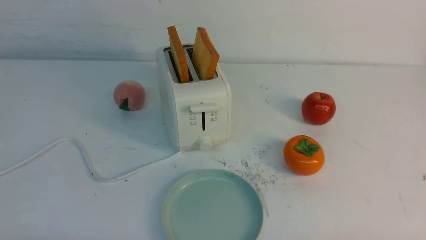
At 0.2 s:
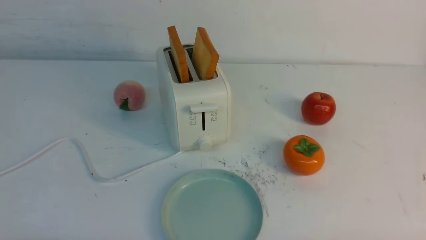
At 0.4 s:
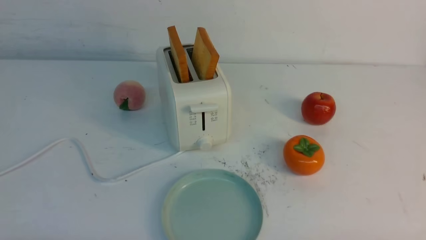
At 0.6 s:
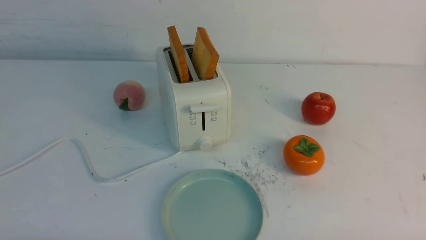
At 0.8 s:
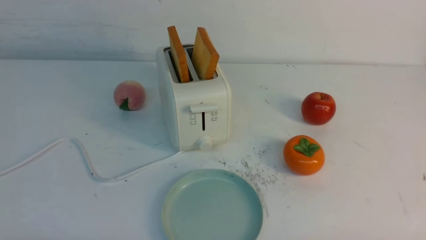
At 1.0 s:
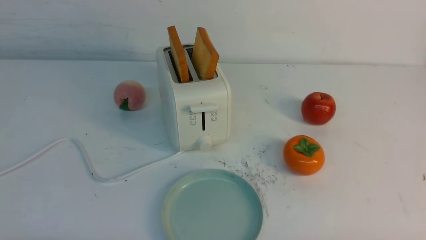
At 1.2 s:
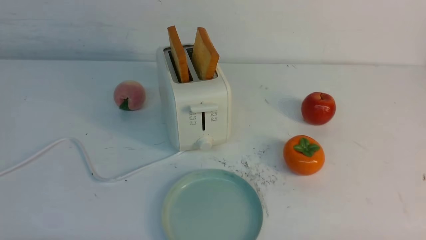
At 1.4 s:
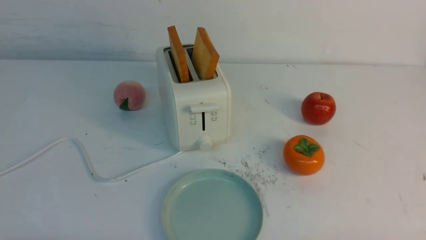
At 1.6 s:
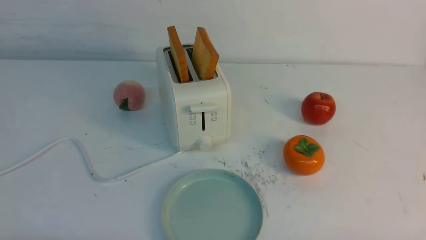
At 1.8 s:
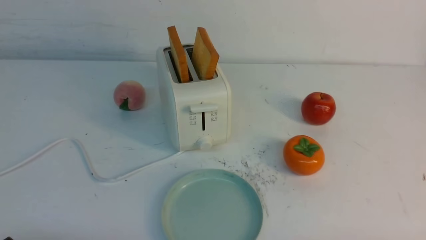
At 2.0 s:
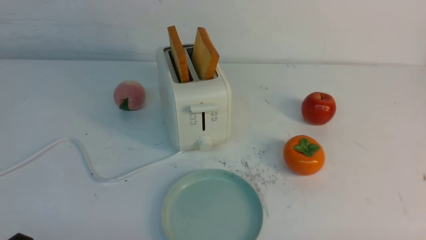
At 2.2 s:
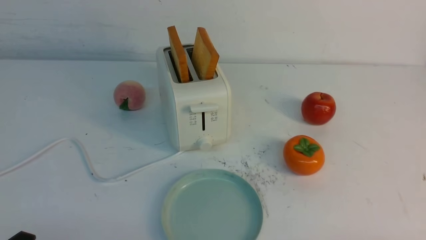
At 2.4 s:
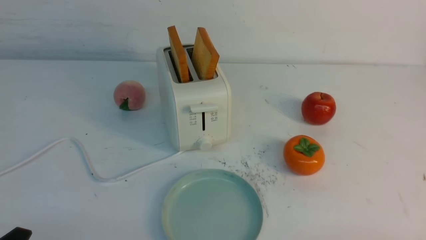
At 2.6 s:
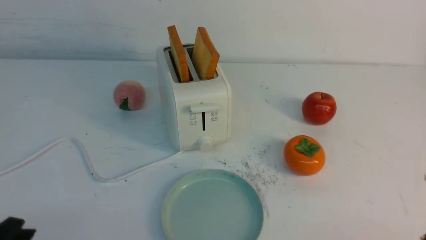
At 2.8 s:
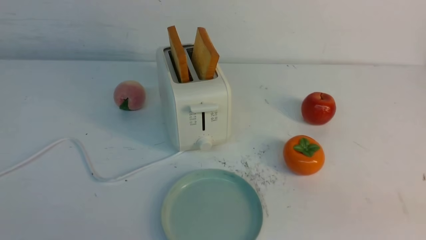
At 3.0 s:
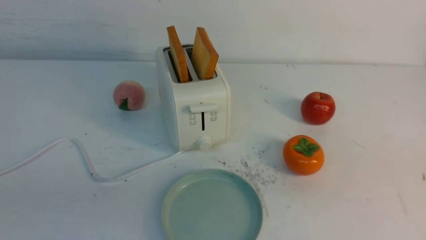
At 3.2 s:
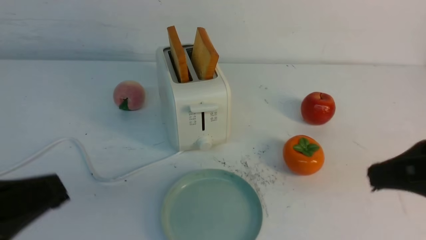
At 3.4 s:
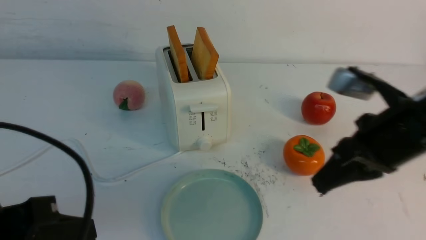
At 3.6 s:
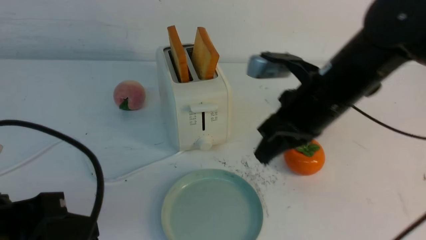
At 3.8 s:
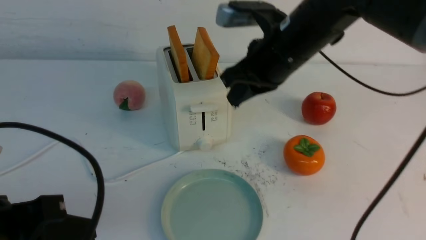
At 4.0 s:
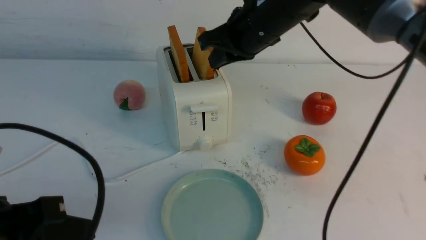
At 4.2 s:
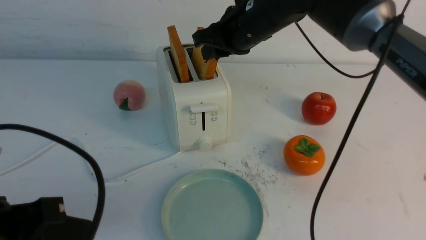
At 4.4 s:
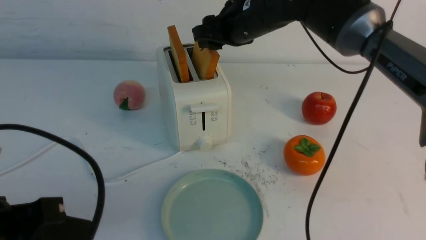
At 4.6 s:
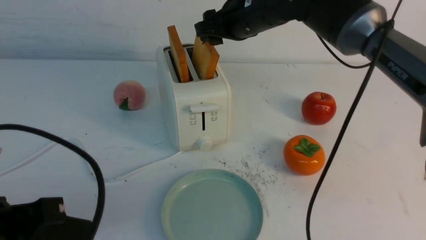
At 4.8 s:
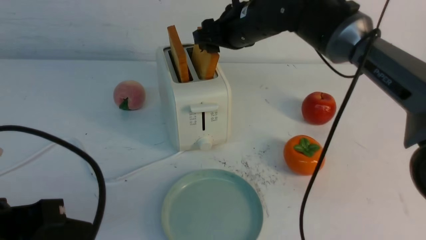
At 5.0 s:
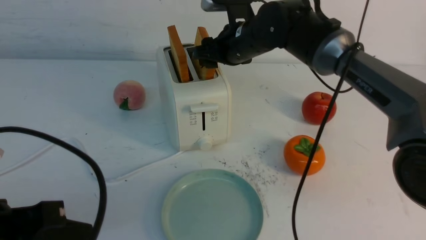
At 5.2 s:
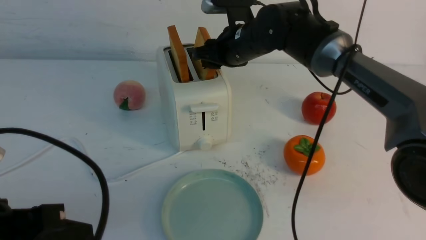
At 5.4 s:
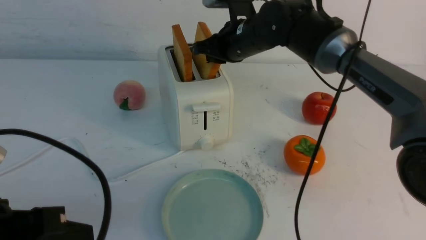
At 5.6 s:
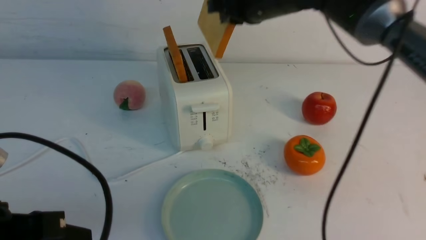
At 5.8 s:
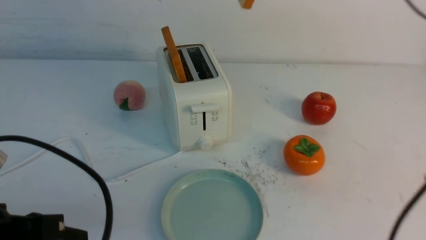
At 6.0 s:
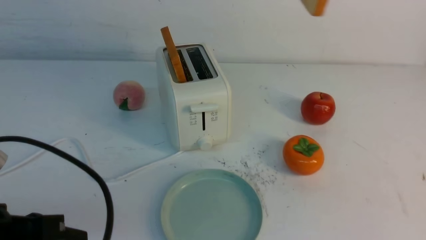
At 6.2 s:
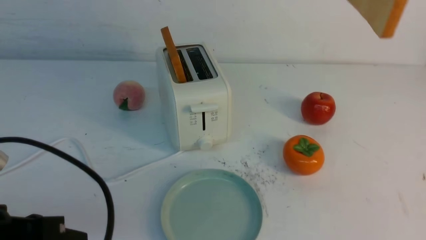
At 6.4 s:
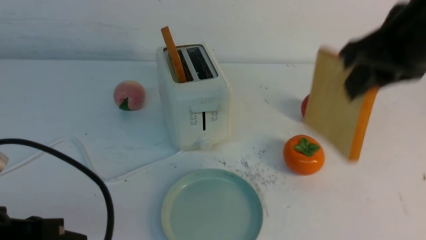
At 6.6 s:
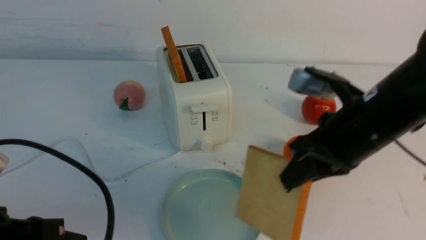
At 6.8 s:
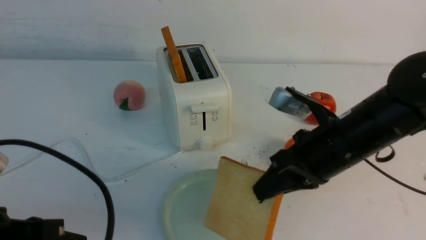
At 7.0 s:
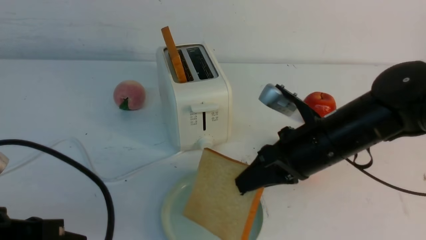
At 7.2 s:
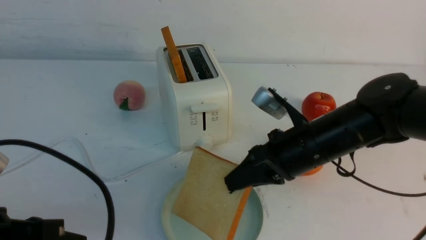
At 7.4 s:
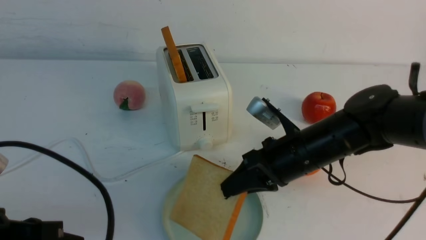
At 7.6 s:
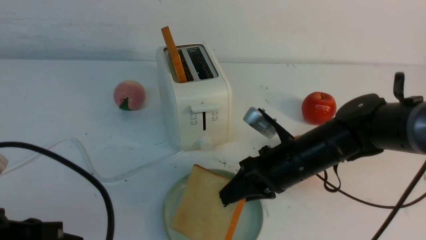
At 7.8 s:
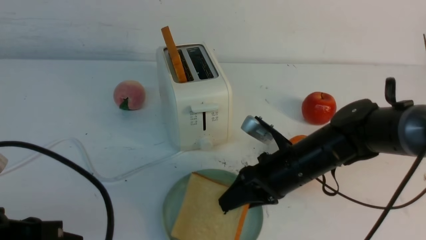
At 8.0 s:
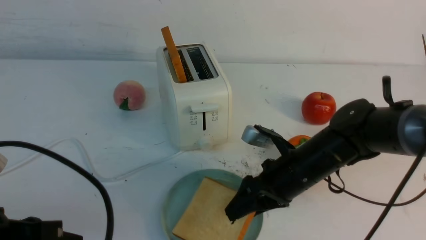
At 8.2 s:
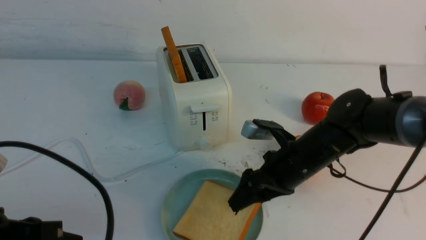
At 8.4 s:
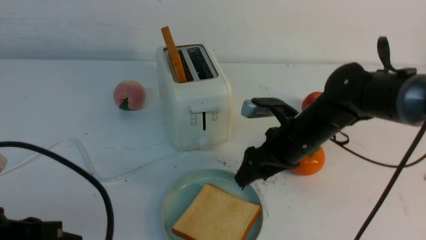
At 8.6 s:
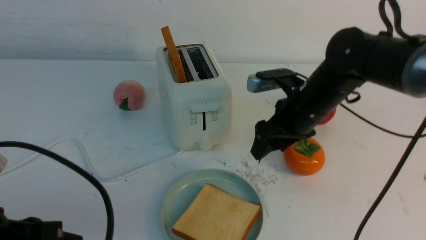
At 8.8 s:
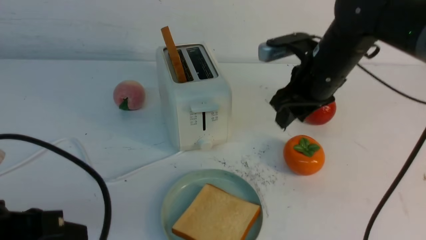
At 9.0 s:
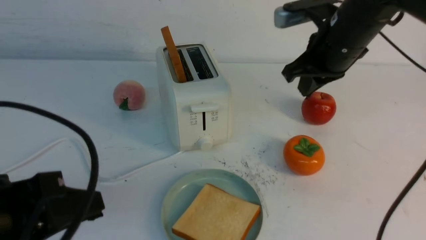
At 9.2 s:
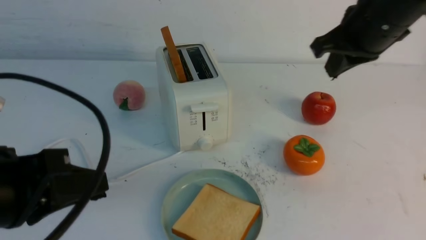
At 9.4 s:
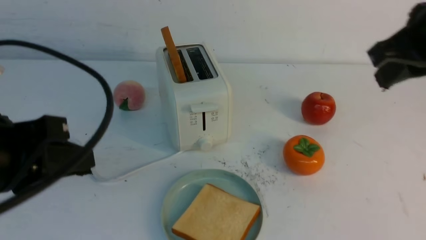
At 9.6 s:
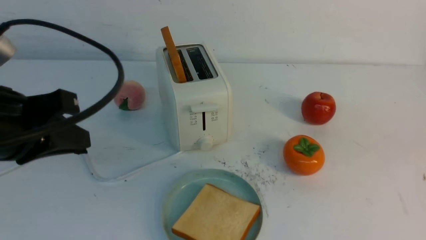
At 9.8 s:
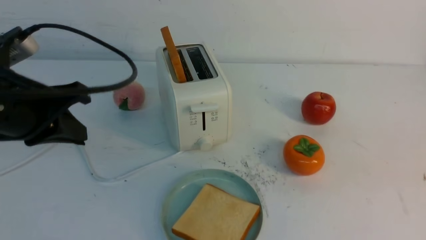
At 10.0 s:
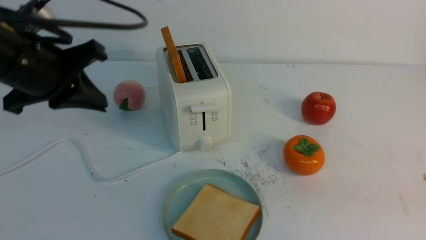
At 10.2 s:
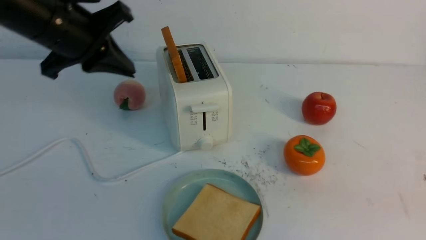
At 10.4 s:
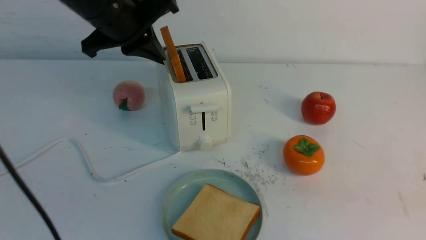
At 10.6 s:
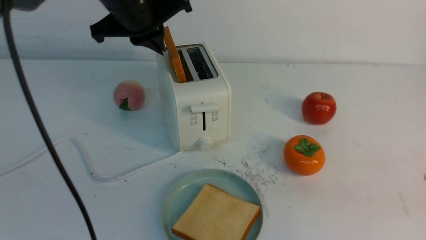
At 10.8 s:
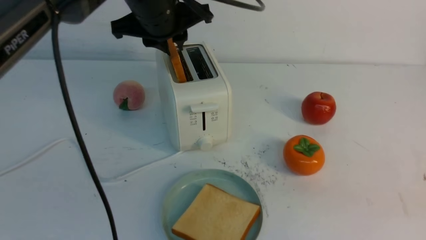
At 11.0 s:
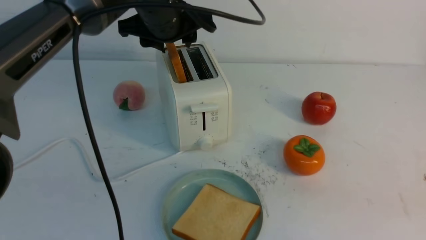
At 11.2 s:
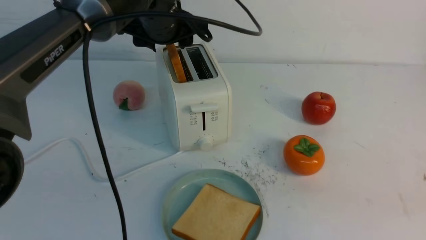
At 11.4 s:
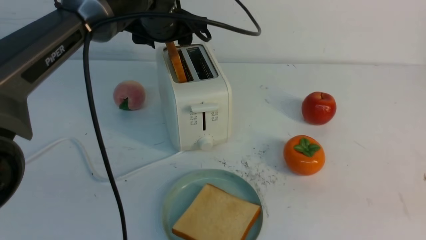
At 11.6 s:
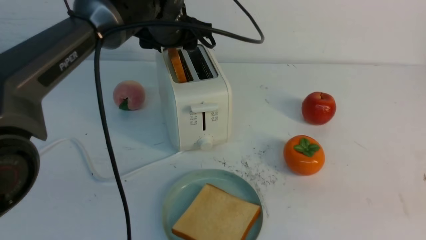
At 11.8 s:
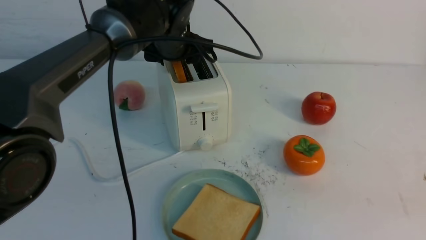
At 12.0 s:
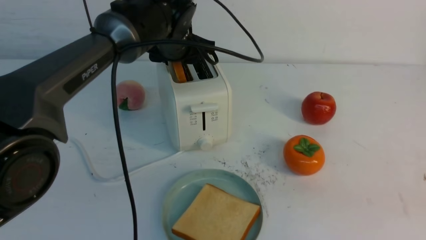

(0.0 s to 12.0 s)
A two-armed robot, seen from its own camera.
Task of the whole recording: take toasted bread from bread machine on white table place on plate.
Step, 0.0 s - 5.4 s: use the right arm to take out a slice of bread.
Step, 5.6 s - 8.2 s: use the right arm to put a slice of bread into the plate.
0.0 s - 1.6 s: Neither gripper changes place.
3.0 s - 4.4 s: The left gripper travels forward by approximately 5 cm, while the right gripper shifts approximately 40 cm forward and to the left, and opens its fingers.
4.4 s - 6.0 s: The right gripper goes approximately 25 cm upward, backward and to the right, and closes its fingers.
6.0 s - 7.6 s: The right gripper moves downward, some 30 cm.
7.6 s - 9.0 s: The right gripper shifts some 15 cm upward, and opens and closes again.
9.0 s - 10.4 s: The left gripper is displaced forward by roughly 25 cm, while the right gripper is displaced backward and to the right by roughly 30 cm.
10.4 s - 12.0 s: The left gripper is displaced forward, downward and to the right by approximately 15 cm, and opens.

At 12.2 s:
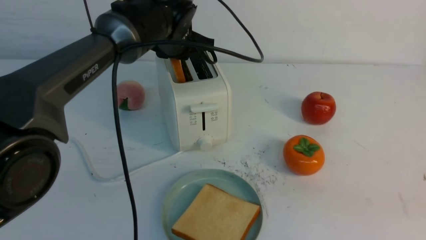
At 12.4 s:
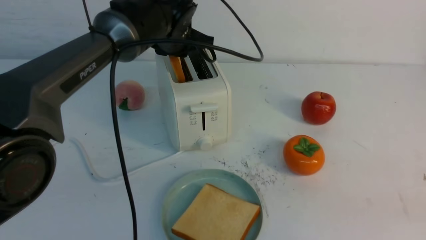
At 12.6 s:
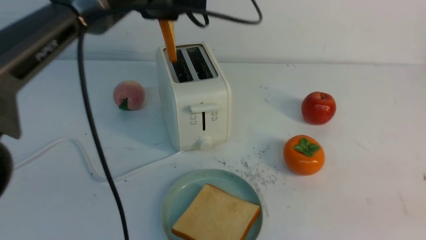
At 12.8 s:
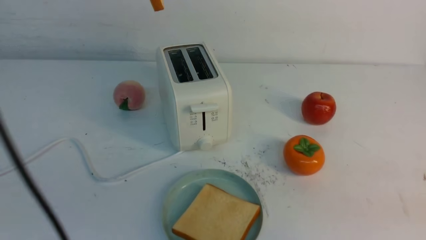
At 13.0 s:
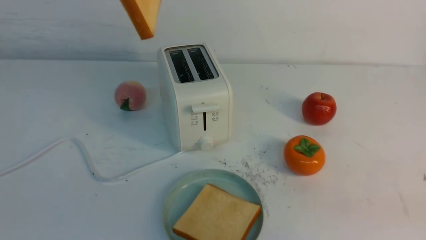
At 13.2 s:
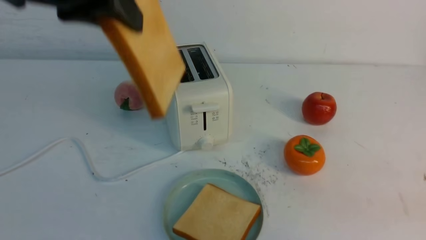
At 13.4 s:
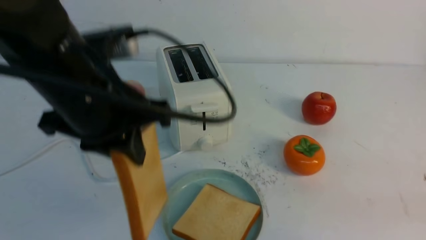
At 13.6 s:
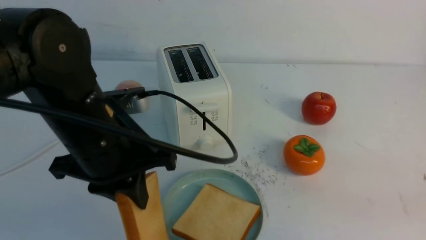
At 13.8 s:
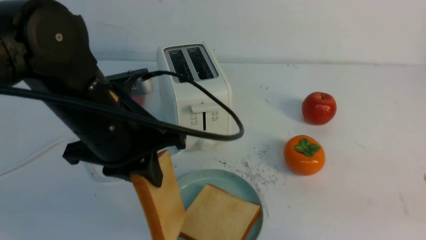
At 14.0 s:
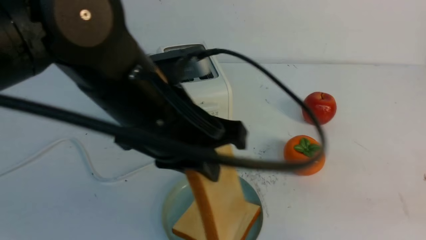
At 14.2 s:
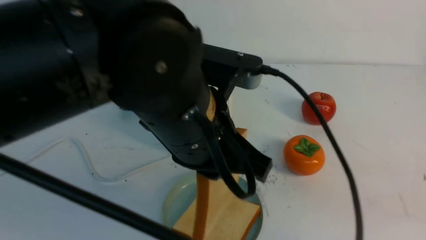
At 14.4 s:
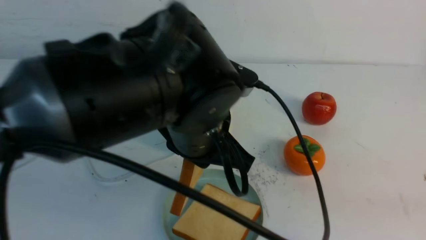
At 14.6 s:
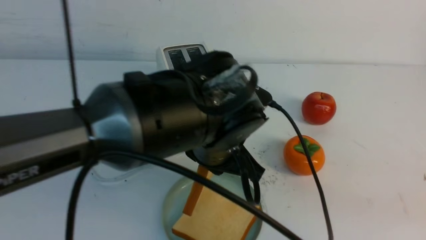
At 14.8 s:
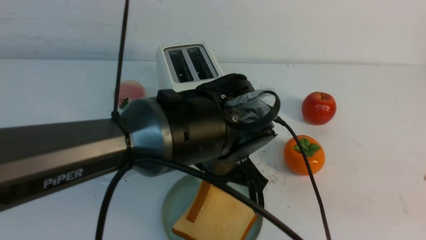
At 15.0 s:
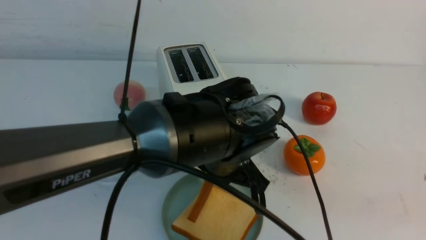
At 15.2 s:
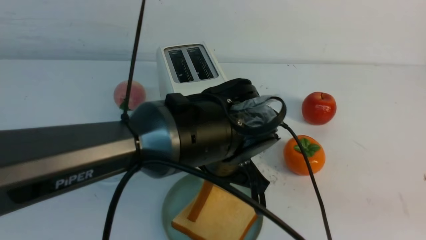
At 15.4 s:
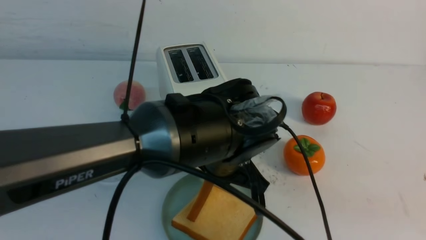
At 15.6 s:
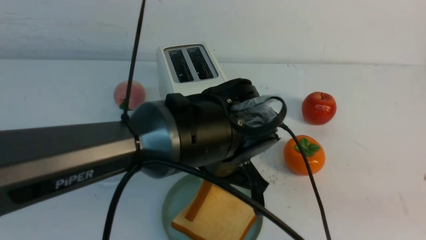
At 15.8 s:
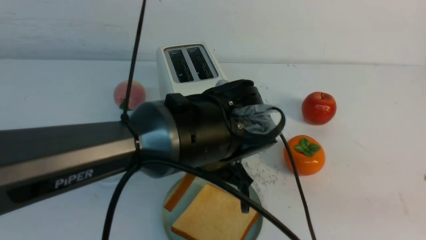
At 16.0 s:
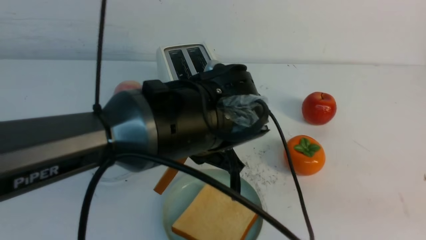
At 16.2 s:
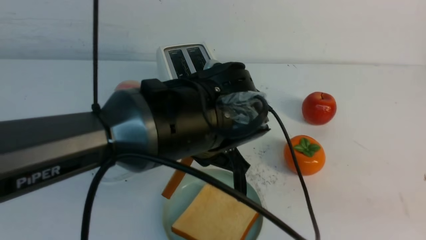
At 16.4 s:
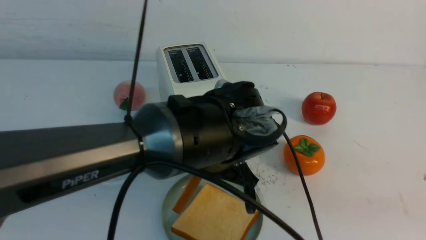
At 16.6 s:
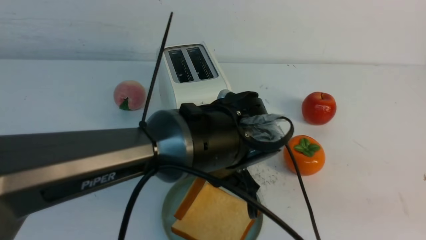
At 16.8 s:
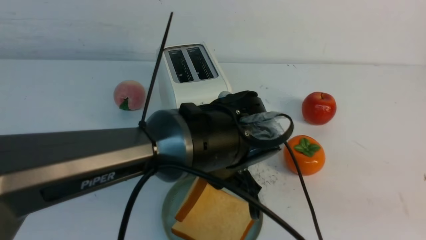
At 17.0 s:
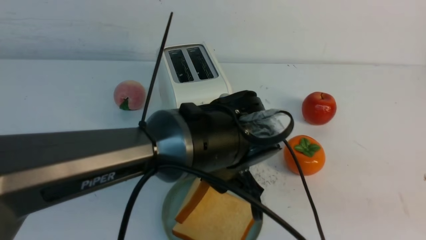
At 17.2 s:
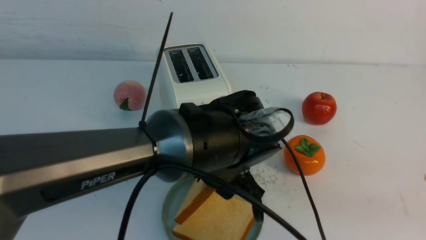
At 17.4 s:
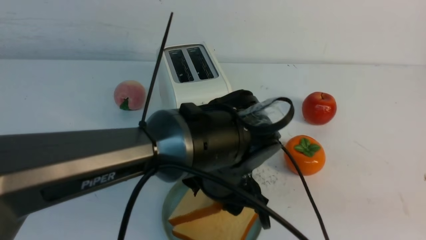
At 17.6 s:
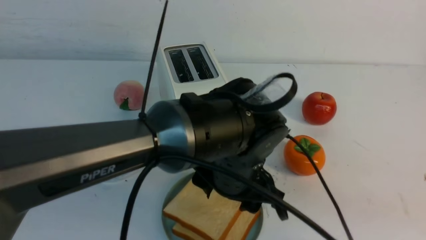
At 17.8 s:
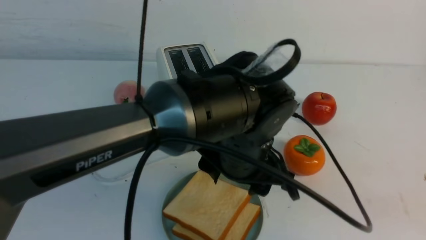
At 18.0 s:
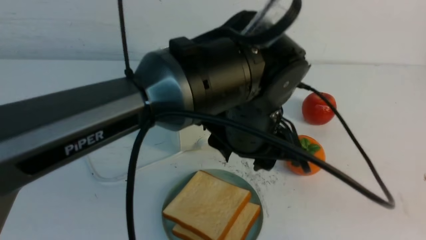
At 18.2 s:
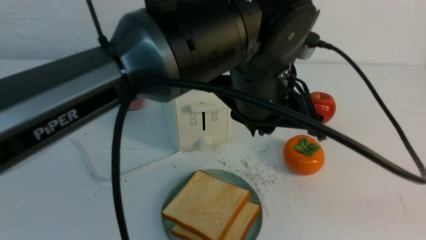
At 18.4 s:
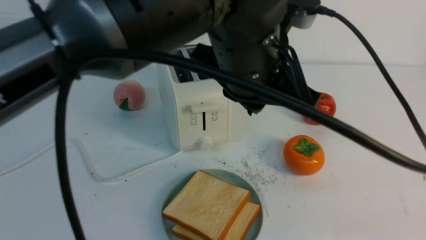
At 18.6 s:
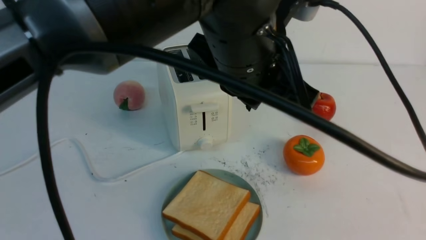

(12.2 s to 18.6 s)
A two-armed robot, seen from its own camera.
Task of the whole recording: take toasted bread from bread machine on white table place on plate.
Step, 12.8 s - 18.0 s: use the left arm to put a slice of bread into the empty plate.
12.2 s - 13.8 s: The left gripper shifts roughly 20 cm backward.
13.8 s - 15.4 s: The left gripper heads to the right and downward, covering roughly 15 cm.
15.4 s - 17.0 s: The grippers move only a little.
17.0 s - 18.6 s: The left gripper is displaced upward by roughly 15 cm, and closes. The right gripper travels backward by roughly 5 cm.
